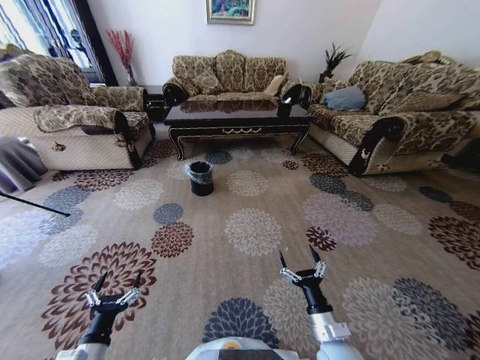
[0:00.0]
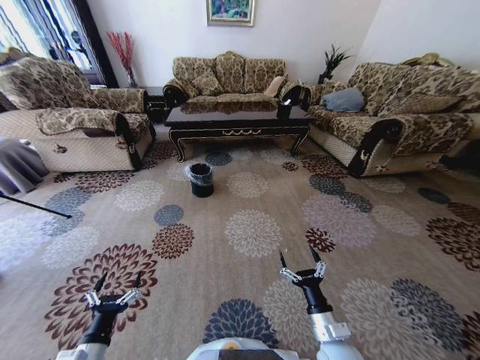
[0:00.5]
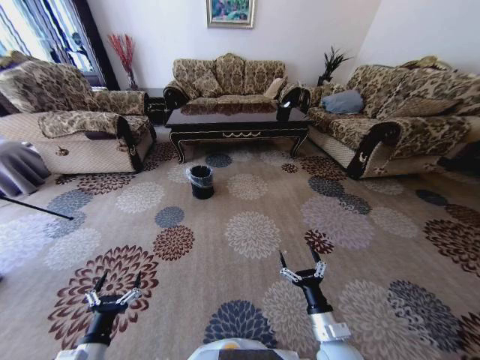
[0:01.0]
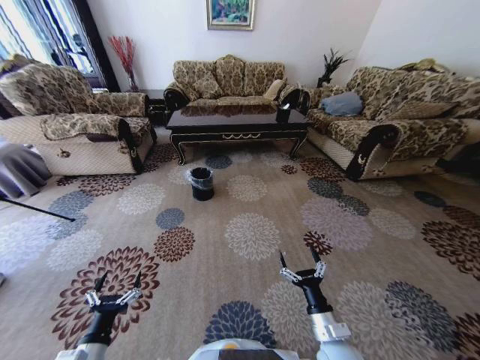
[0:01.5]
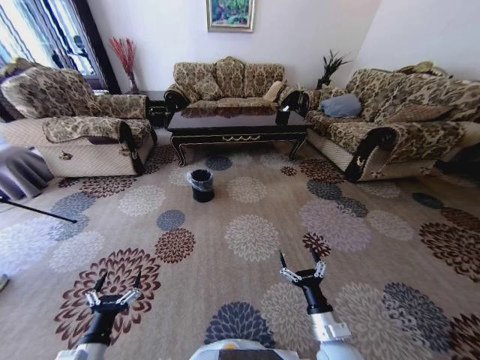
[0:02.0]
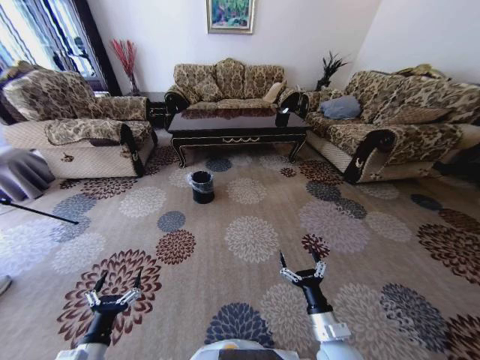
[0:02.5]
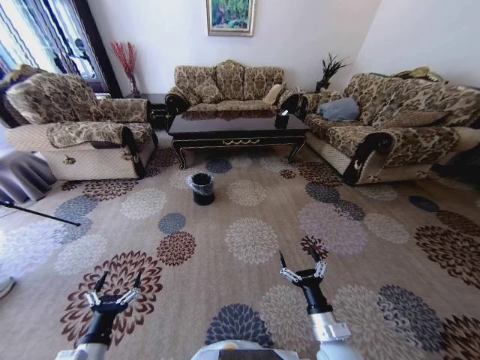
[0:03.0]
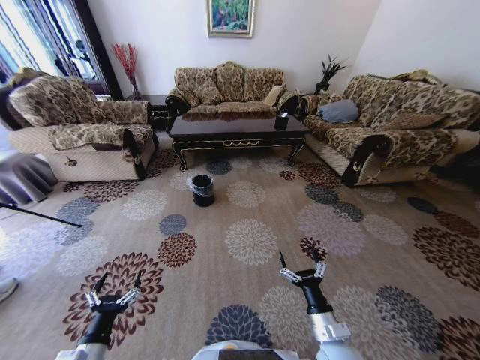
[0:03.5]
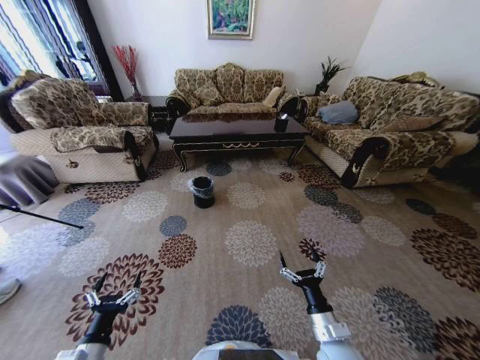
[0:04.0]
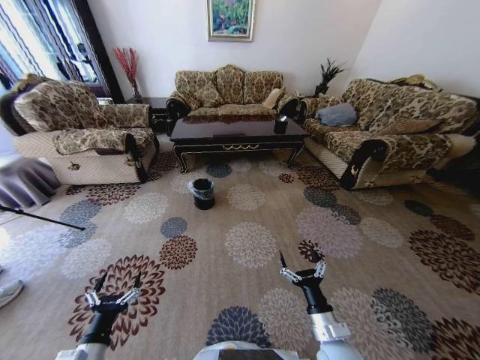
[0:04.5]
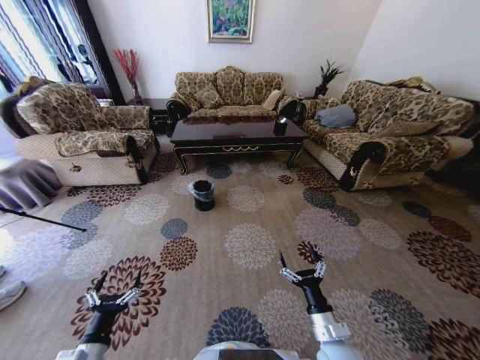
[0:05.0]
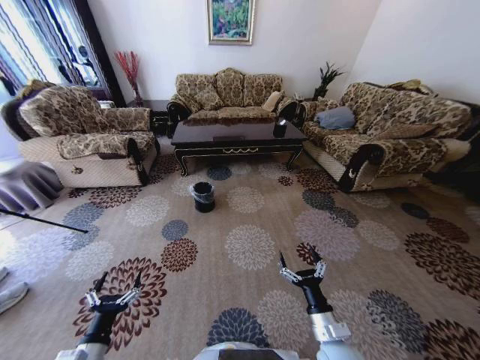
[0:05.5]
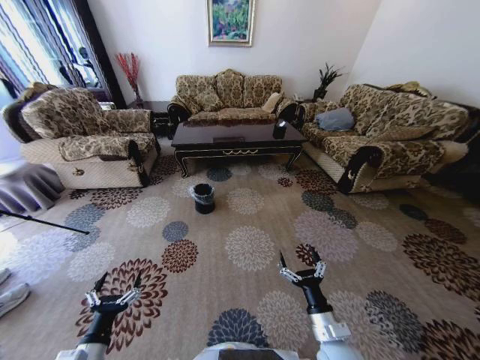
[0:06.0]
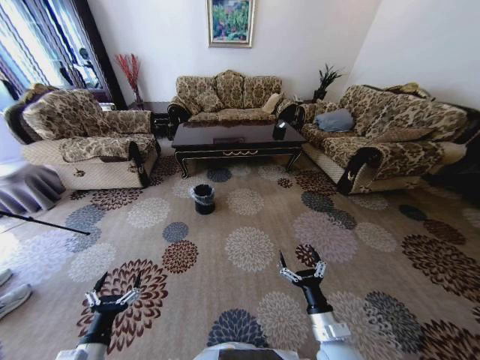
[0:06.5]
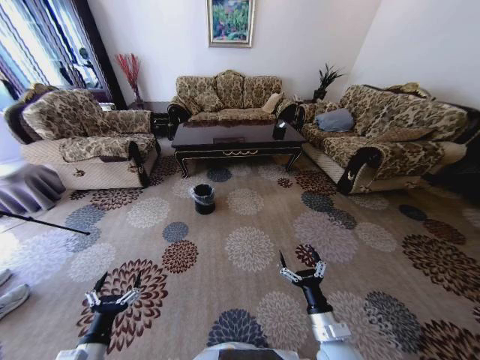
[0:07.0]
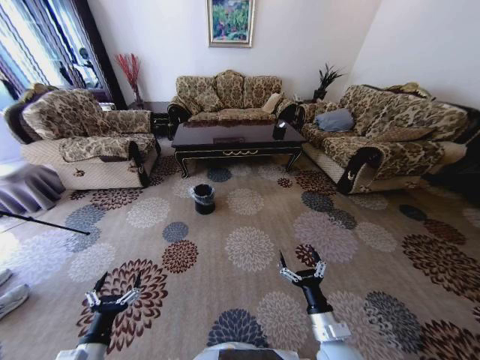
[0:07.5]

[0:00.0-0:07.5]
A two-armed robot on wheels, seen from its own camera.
Task of the whole recording: Move to the front of the table and pick up the trash from the floor, then place it into the trash bin.
0:05.5 to 0:07.5: The two grippers keep their place.

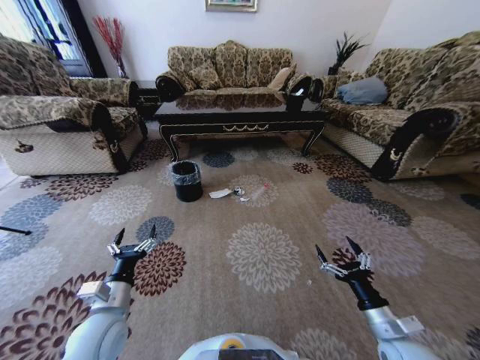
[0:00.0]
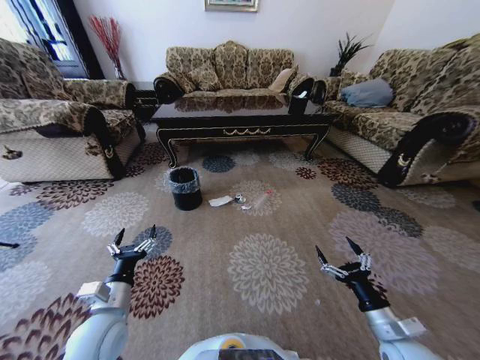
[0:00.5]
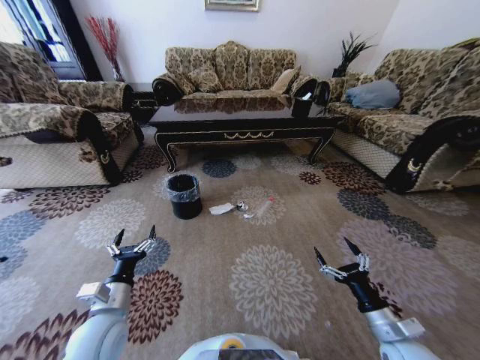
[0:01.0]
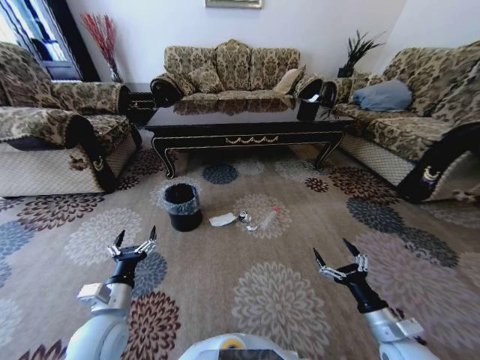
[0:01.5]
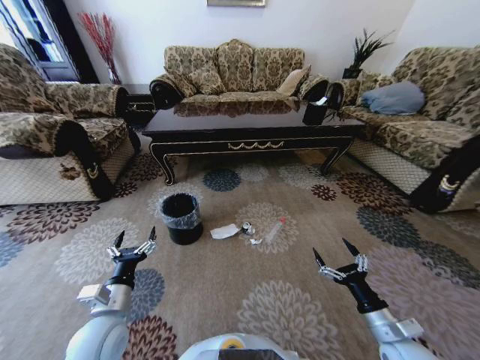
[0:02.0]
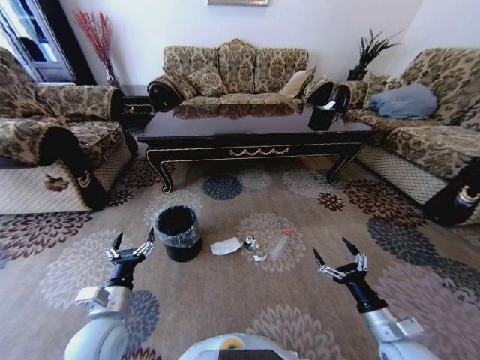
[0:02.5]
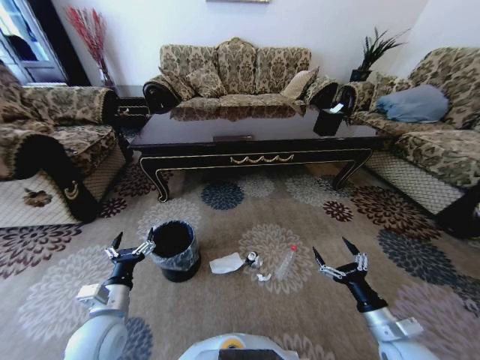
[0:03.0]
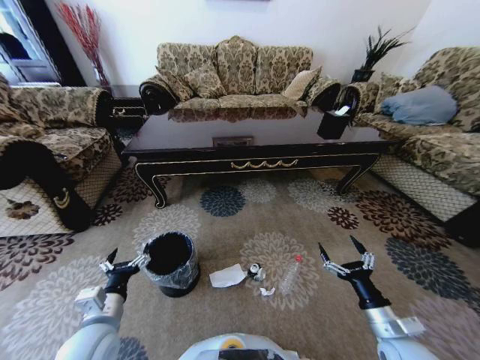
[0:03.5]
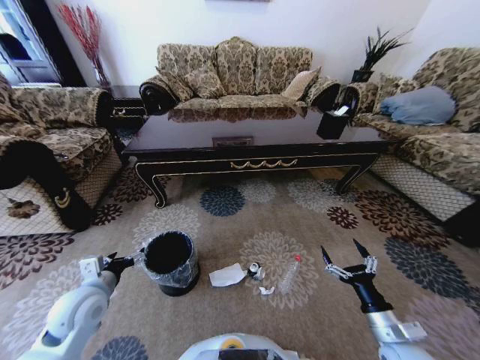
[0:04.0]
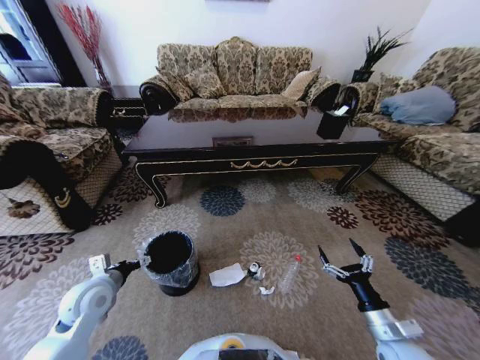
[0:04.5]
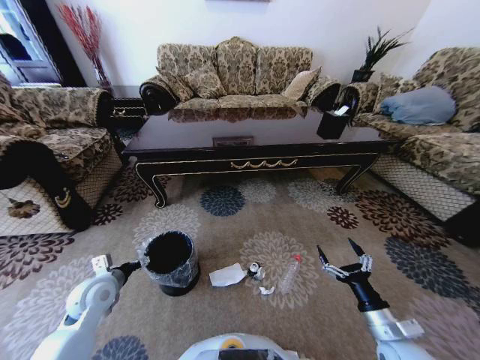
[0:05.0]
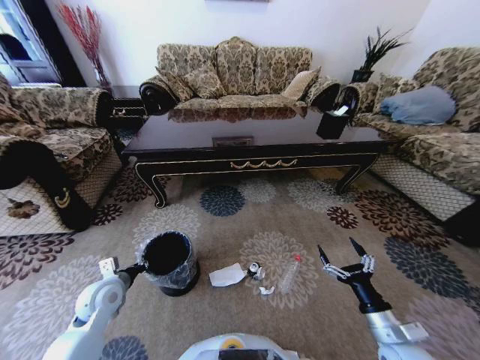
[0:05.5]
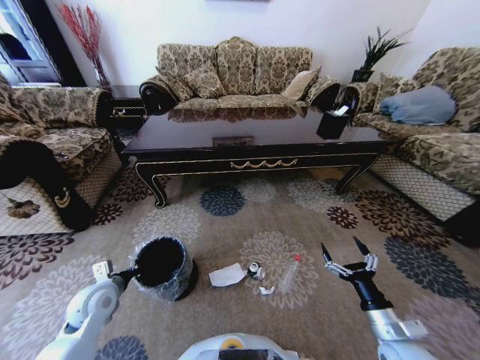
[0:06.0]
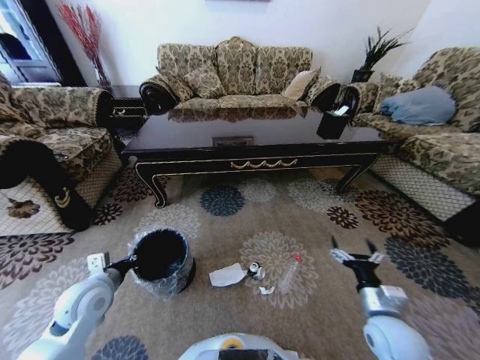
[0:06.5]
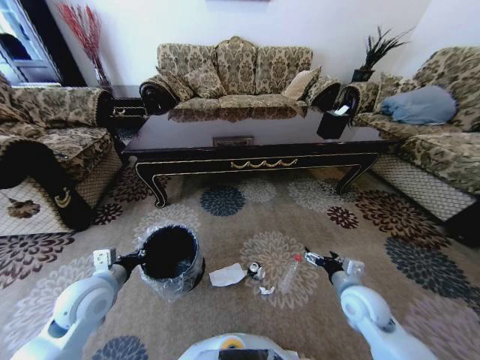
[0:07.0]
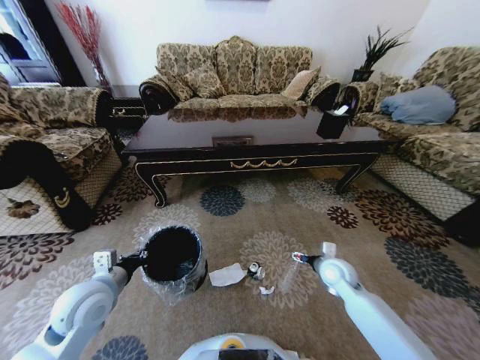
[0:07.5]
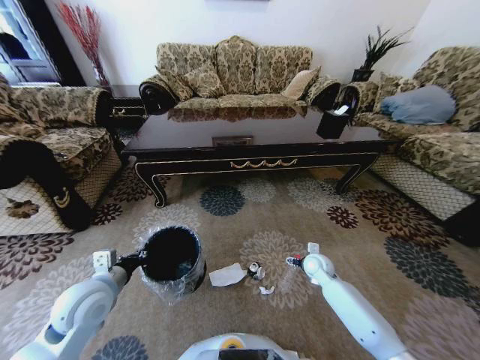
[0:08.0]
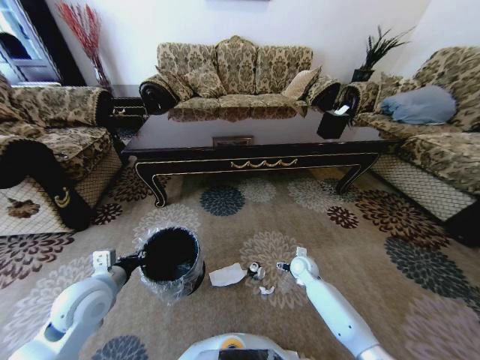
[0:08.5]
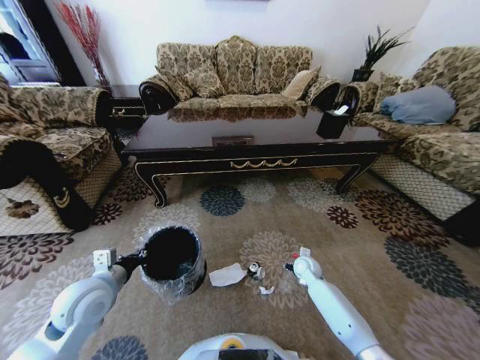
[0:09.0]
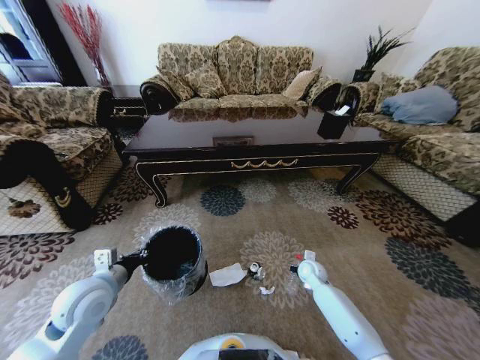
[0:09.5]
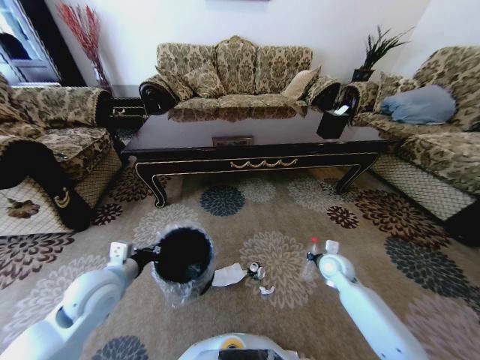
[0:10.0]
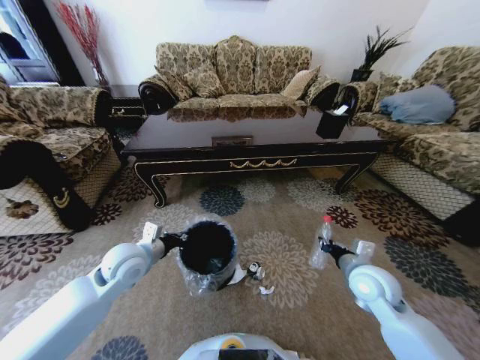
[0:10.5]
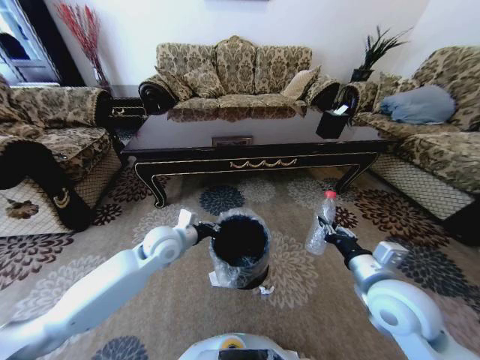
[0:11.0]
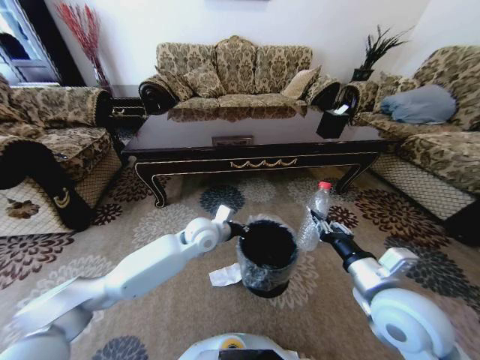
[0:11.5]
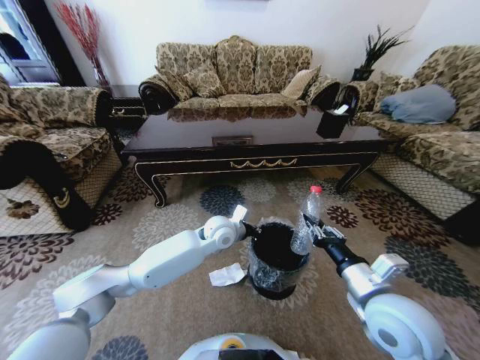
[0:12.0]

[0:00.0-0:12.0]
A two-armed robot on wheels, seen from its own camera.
Task of the whole recording: Move to the front of the table and pick up the trash from the floor, then place it into the trash bin.
0:02.0 to 0:04.0: The left gripper travels to the left and forward by approximately 10 cm.
0:04.0 to 0:06.0: The left gripper moves downward, roughly 5 cm, and closes its fingers.
0:06.0 to 0:08.0: The right gripper shifts about 25 cm forward, while the left gripper is displaced upward by approximately 10 cm.
0:08.0 to 0:10.0: The right gripper ends up approximately 5 cm from where it was, and closes its fingers.
0:10.0 to 0:12.0: The right gripper moves backward and upward, about 25 cm, while the left gripper heads to the right and forward, covering about 30 cm.

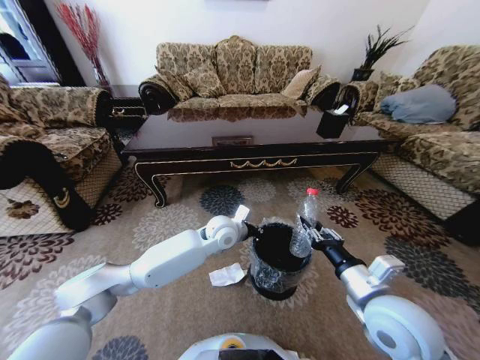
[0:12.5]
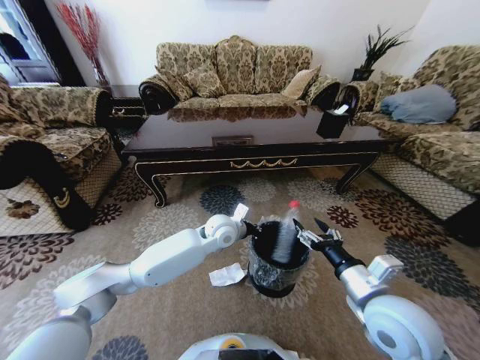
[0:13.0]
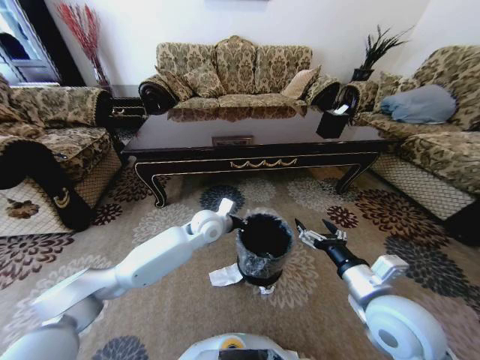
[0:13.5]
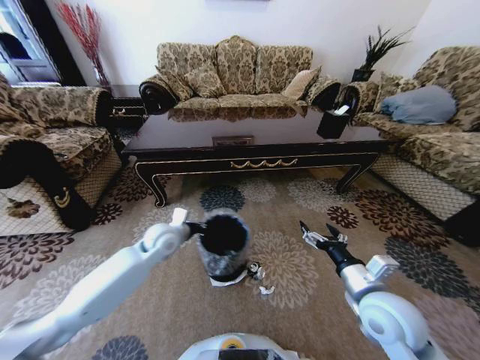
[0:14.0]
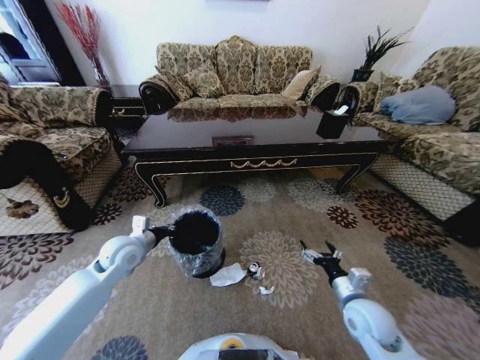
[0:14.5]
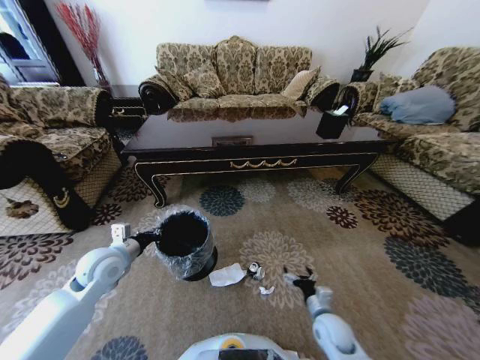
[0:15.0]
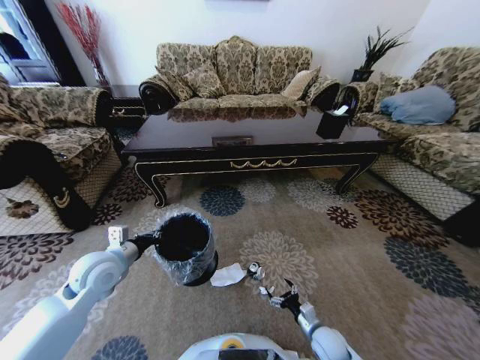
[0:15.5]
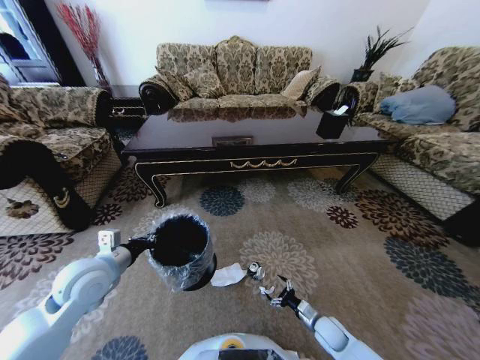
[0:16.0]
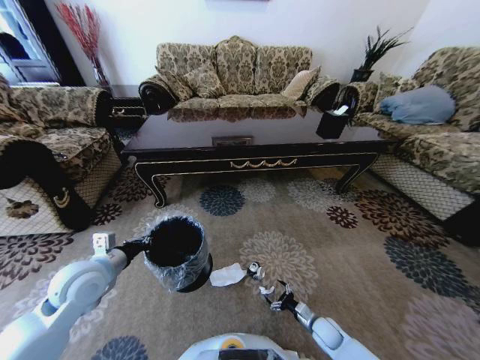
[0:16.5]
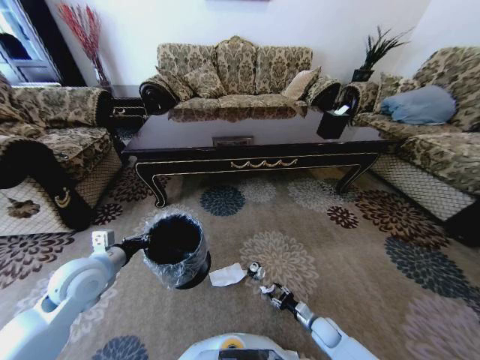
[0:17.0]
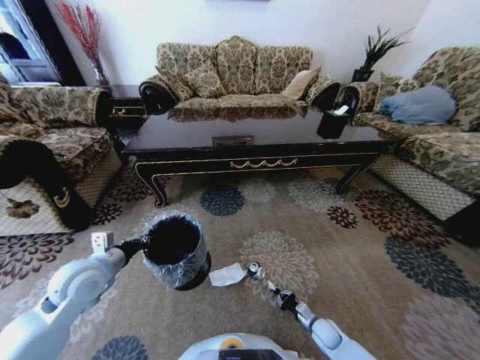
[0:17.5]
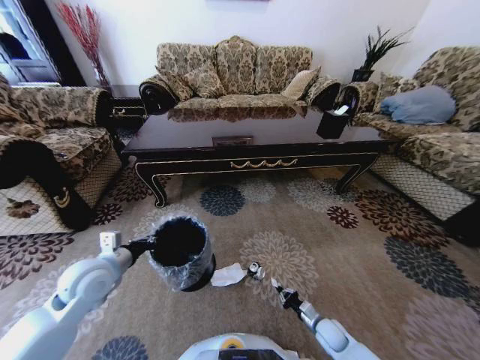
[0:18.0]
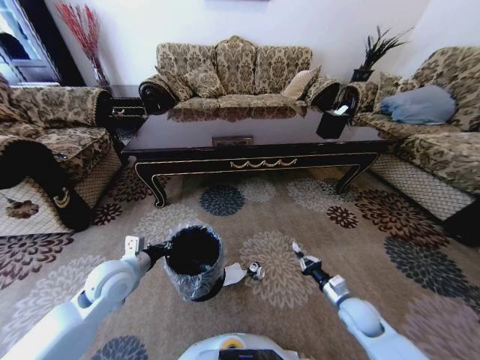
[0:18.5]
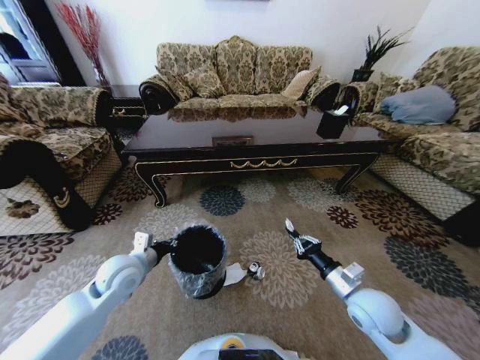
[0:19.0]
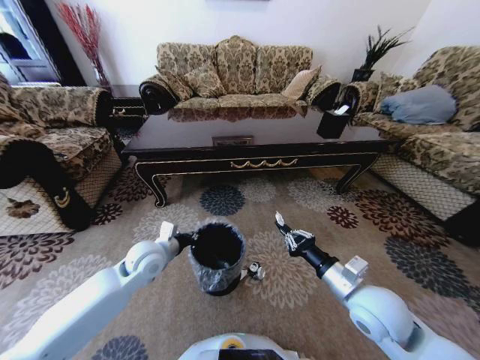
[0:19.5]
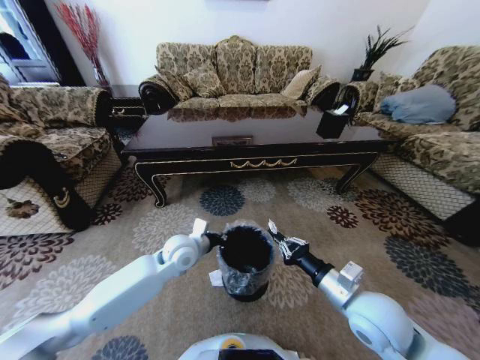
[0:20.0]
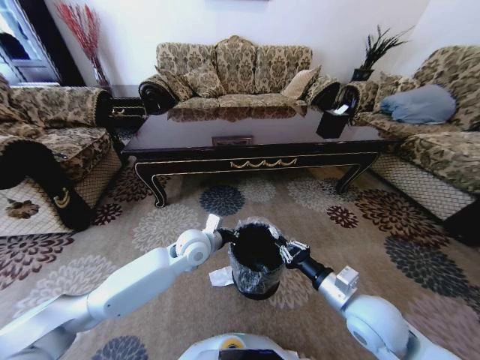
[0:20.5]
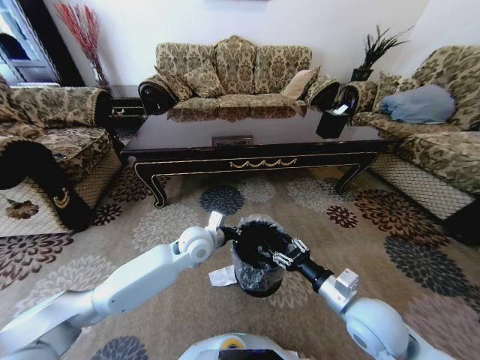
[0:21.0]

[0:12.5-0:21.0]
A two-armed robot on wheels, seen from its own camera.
Task of the whole recording: Move to the front of the table and pick up the trash from the floor, then place it into the trash bin.
0:12.5 to 0:14.5: The right gripper goes about 15 cm downward, and opens its fingers. Meanwhile the left gripper moves to the left, approximately 25 cm.
0:14.5 to 0:16.5: The left gripper travels backward by about 10 cm; the right gripper moves downward, roughly 25 cm.
0:16.5 to 0:19.0: The left gripper shifts some 5 cm to the right. The right gripper heads upward, covering approximately 30 cm, and closes its fingers.
0:19.0 to 0:21.0: The left gripper goes some 20 cm to the right and forward, while the right gripper ends up about 5 cm from where it was, and opens its fingers.
